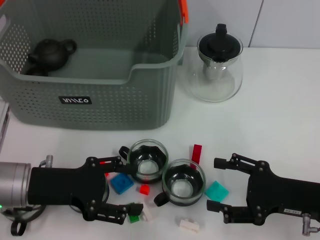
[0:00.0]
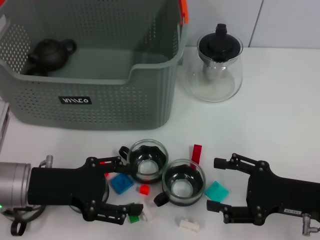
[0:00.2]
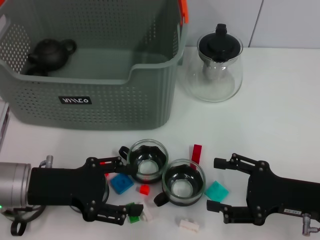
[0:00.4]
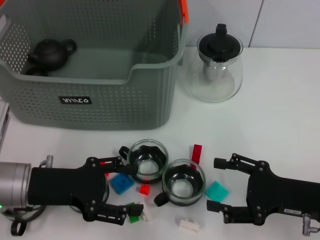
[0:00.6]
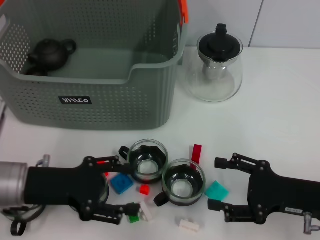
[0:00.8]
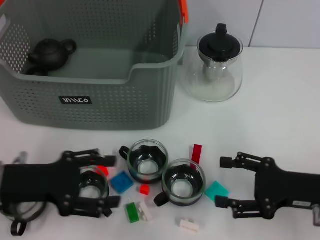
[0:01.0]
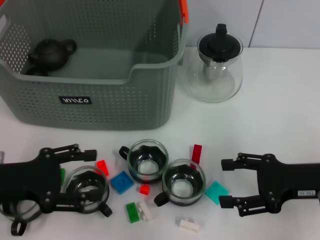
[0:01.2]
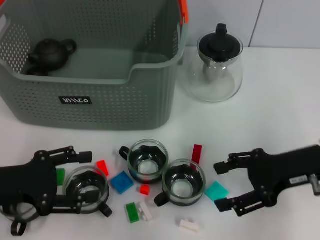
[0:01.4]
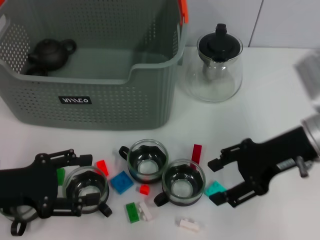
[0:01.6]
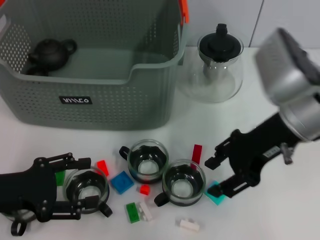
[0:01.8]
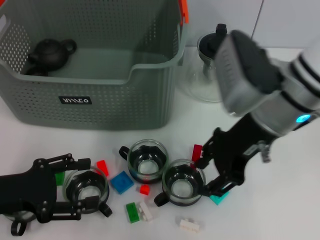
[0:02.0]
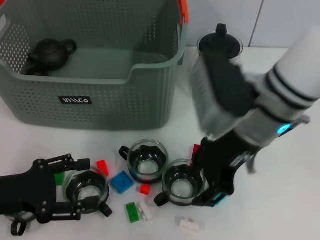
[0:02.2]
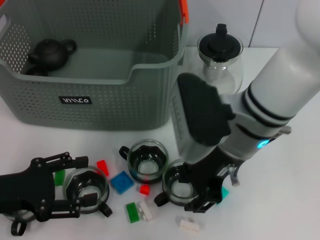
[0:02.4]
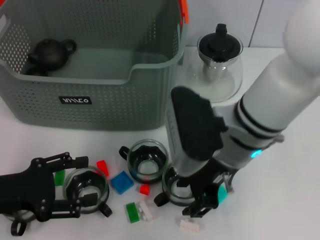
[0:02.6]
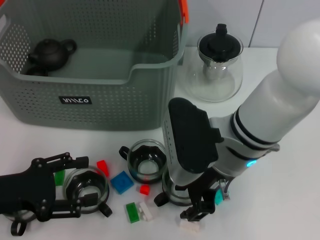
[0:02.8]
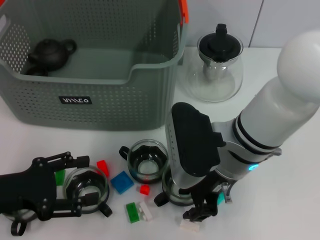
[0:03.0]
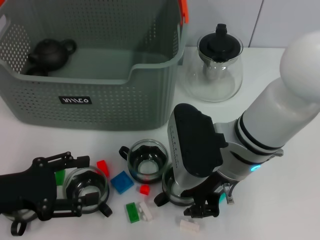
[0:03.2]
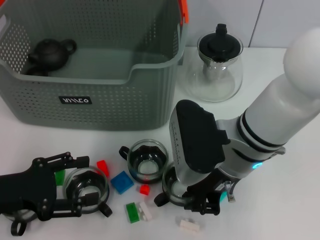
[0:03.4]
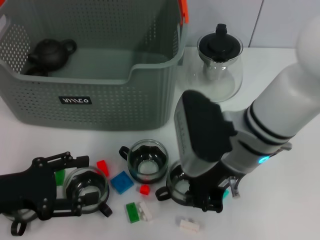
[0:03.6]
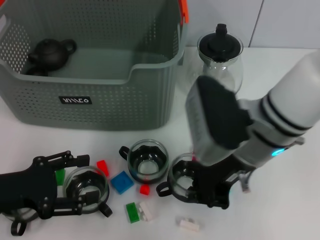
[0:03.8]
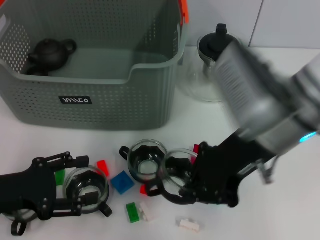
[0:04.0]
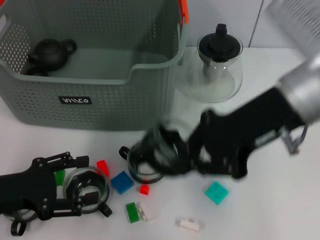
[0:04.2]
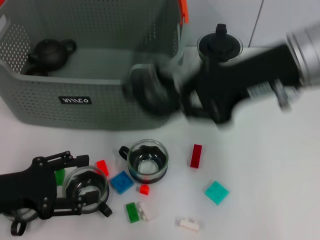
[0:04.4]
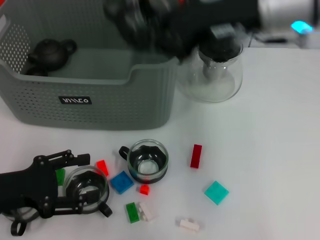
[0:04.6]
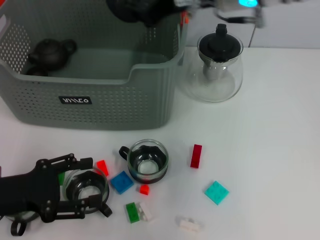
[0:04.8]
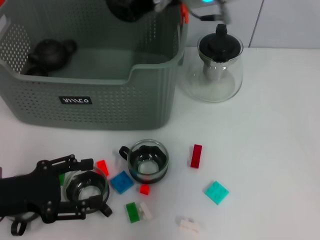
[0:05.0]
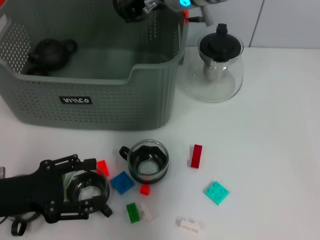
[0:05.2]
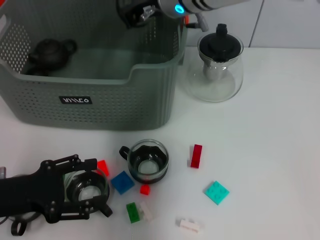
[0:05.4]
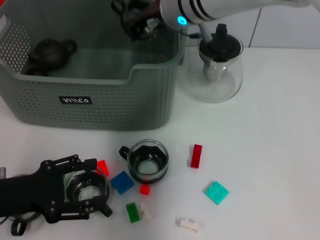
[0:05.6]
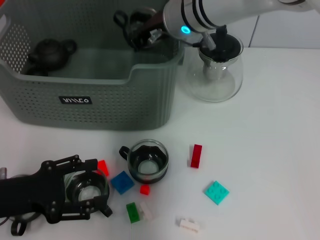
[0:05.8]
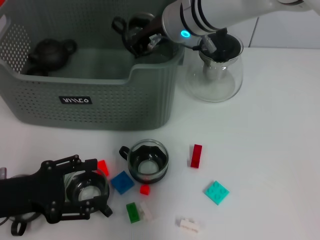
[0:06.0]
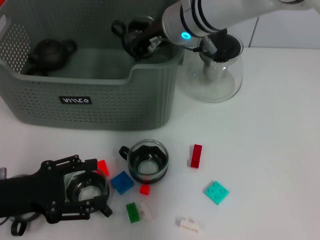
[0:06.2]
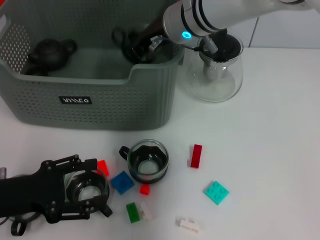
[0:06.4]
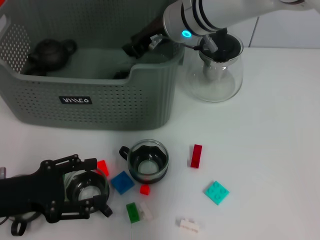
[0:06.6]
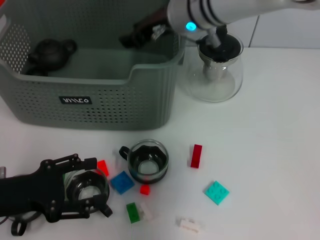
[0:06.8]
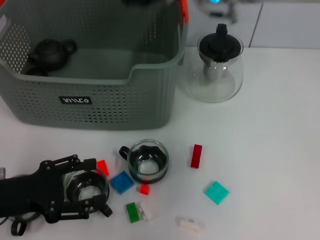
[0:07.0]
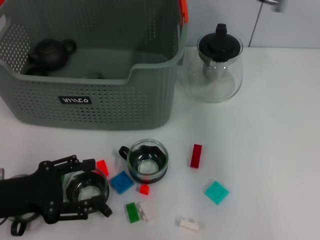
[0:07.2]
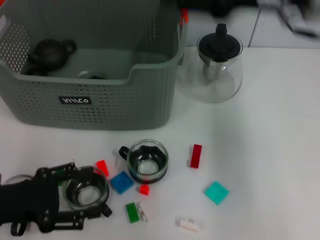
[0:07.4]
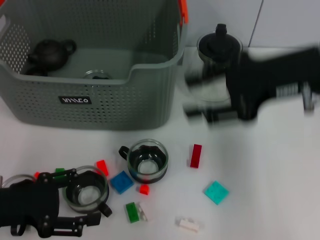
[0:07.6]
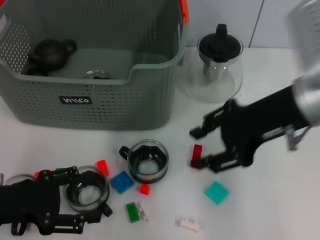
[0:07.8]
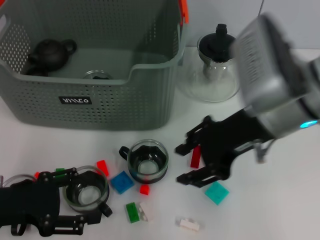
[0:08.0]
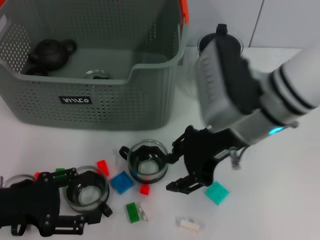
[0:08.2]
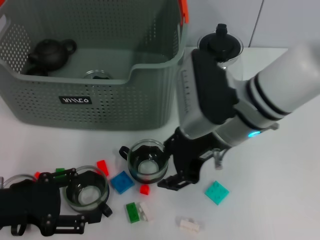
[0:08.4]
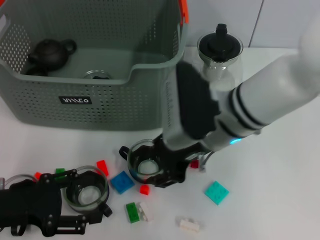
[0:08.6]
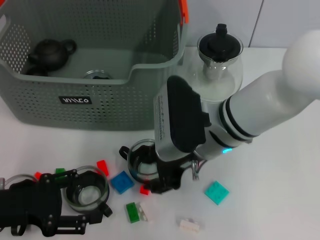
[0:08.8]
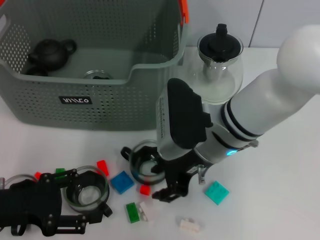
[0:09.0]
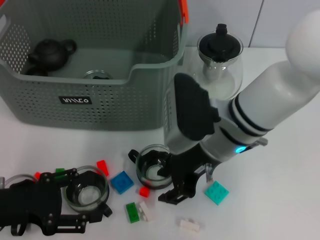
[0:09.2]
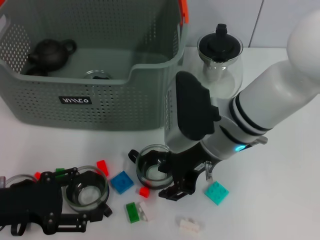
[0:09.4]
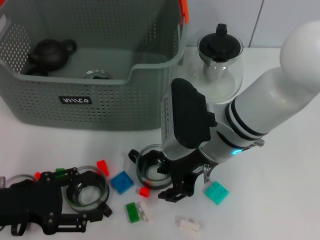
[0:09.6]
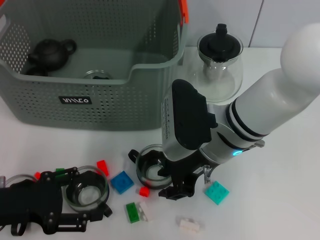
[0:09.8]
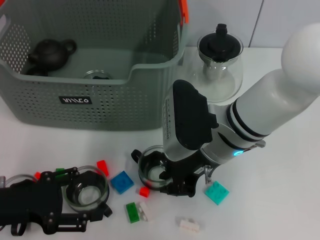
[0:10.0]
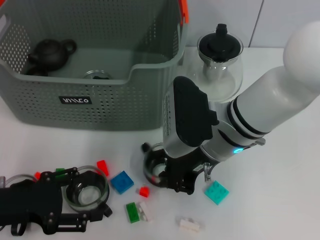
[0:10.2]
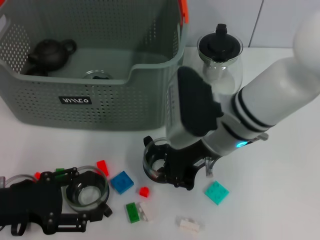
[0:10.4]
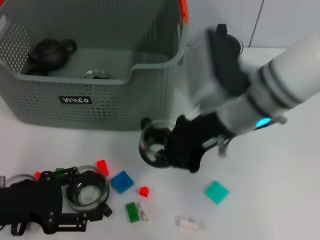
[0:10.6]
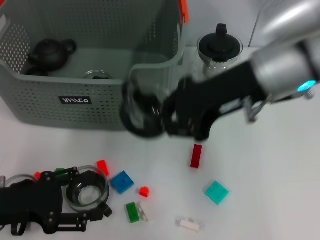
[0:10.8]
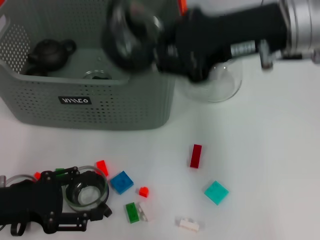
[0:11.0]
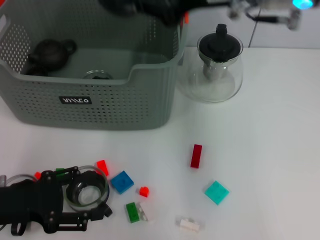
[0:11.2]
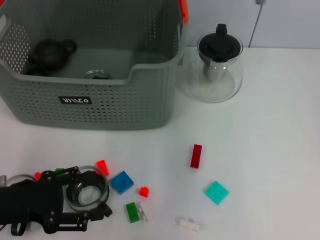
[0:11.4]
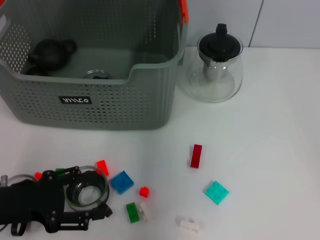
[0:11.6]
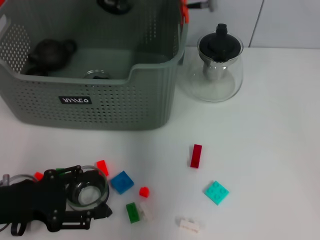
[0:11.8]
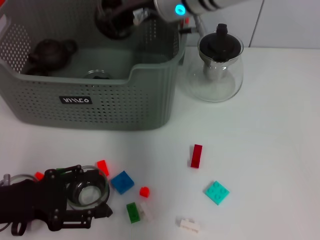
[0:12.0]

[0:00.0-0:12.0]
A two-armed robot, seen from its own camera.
Task of the whole recording: pick up the teacup on the table and place it into the storage bin, pick up the block on the table and place it into the storage bin.
Step, 0:00.0 to 0:03.6: Grasp the cup with right gripper.
Step, 0:03.8 to 0:06.6: Place the cup in the storage box with right gripper.
Step, 0:06.8 to 0:10.2: Grasp the cup with right gripper.
0:00.0 to 0:01.6: The left gripper is displaced to the left by approximately 5 cm, while the right gripper moves upward and forward, approximately 15 cm.
0:01.6 to 0:03.0: The right gripper is displaced to the left by some 15 cm, and closes.
0:03.0 to 0:04.4: The right gripper is displaced upward and to the right by roughly 15 cm, and closes up.
0:04.4 to 0:06.0: The right gripper shifts some 20 cm to the left, forward and downward.
0:06.0 to 0:07.6: The right gripper heads to the right and backward, covering roughly 20 cm, and opens.
0:07.6 to 0:09.0: The right gripper shifts some 15 cm to the left and downward.
0:09.0 to 0:10.4: The right gripper closes its fingers.
0:10.4 to 0:12.0: The right gripper shifts some 15 cm forward, upward and to the left.

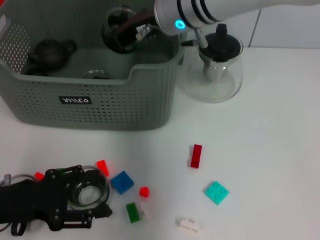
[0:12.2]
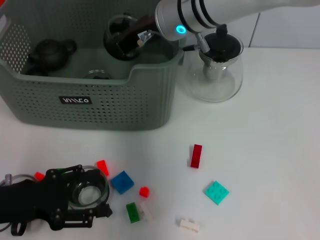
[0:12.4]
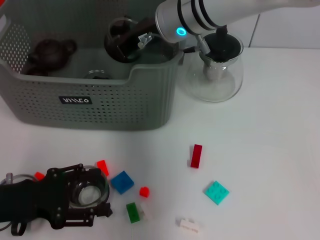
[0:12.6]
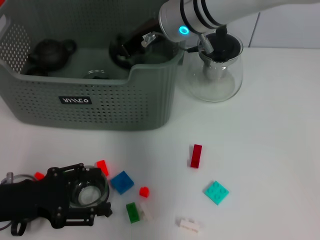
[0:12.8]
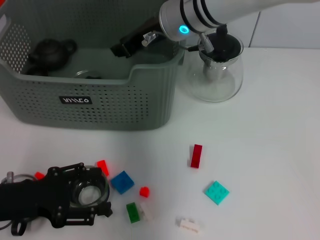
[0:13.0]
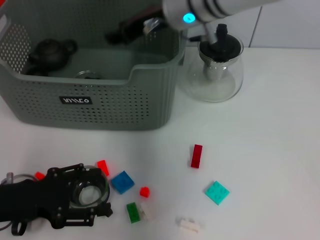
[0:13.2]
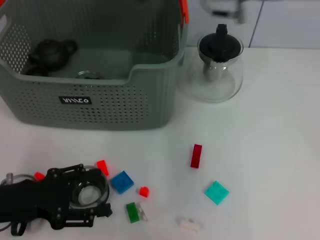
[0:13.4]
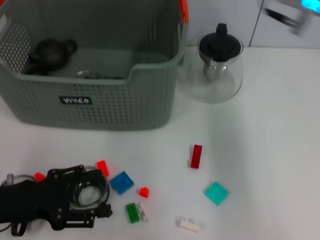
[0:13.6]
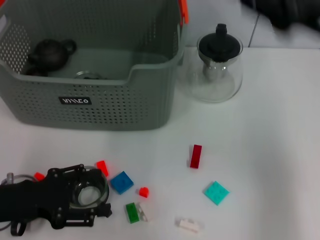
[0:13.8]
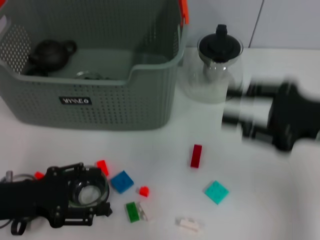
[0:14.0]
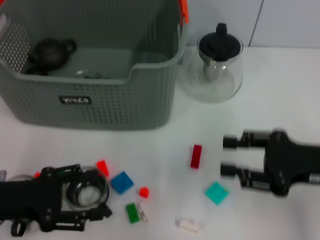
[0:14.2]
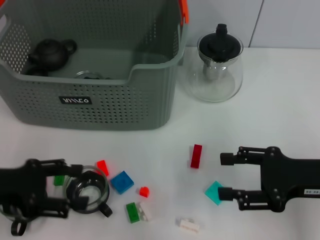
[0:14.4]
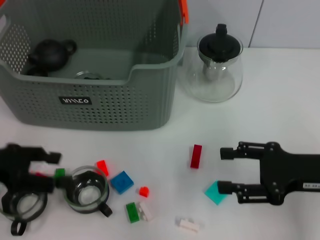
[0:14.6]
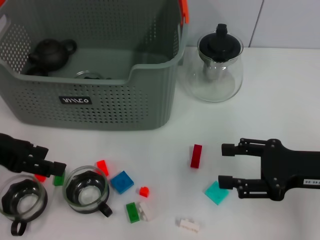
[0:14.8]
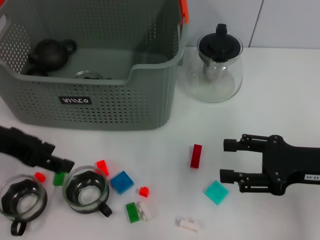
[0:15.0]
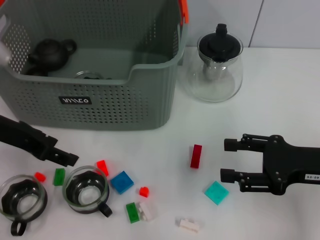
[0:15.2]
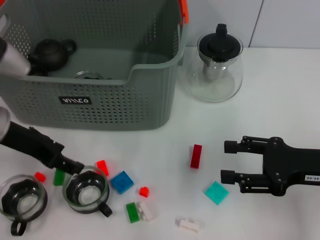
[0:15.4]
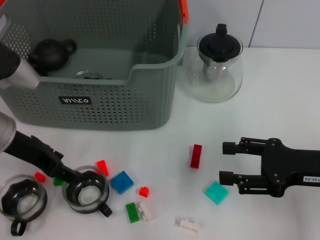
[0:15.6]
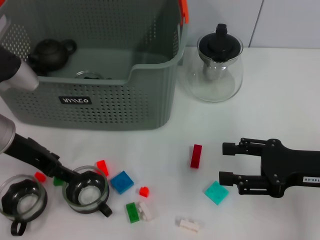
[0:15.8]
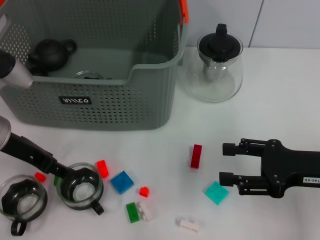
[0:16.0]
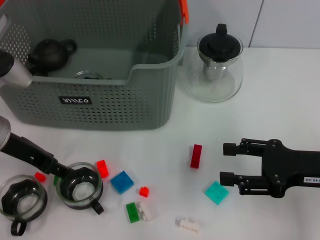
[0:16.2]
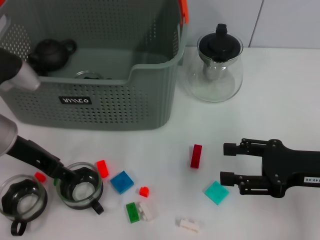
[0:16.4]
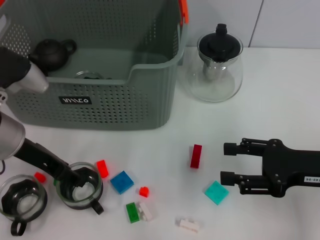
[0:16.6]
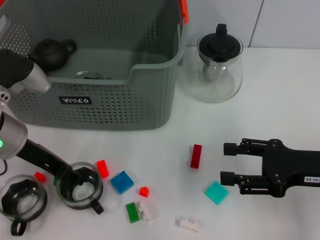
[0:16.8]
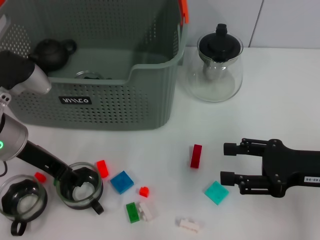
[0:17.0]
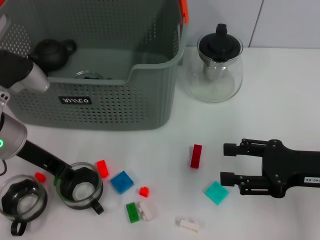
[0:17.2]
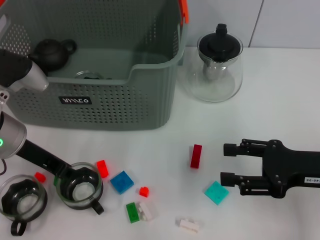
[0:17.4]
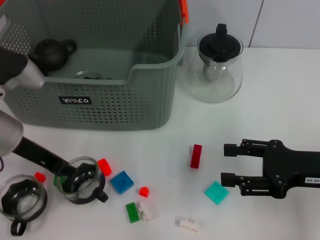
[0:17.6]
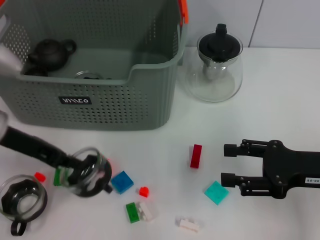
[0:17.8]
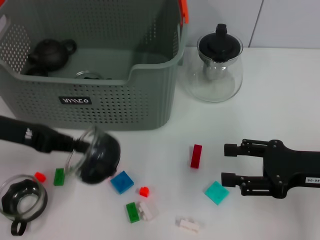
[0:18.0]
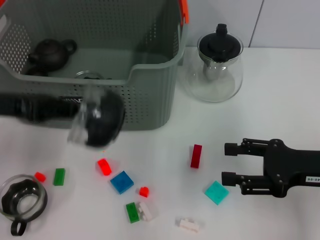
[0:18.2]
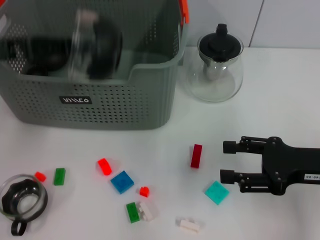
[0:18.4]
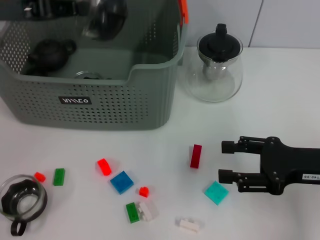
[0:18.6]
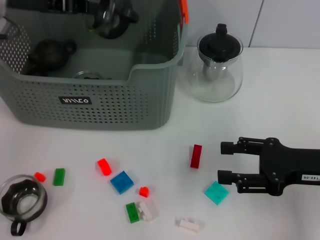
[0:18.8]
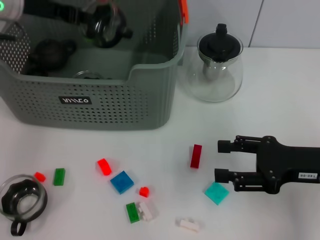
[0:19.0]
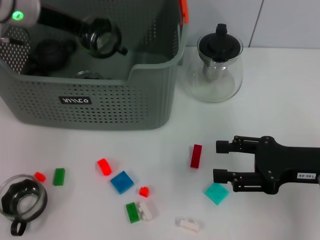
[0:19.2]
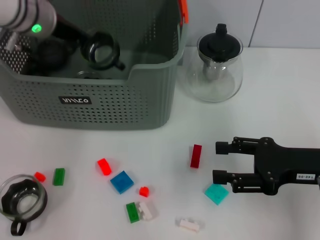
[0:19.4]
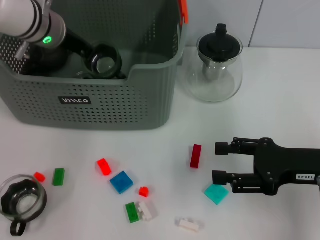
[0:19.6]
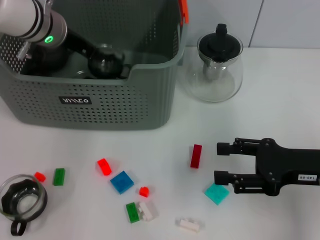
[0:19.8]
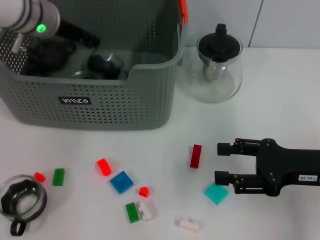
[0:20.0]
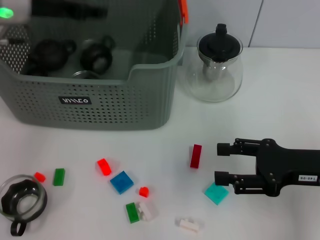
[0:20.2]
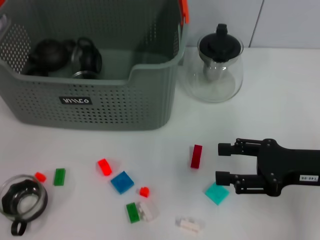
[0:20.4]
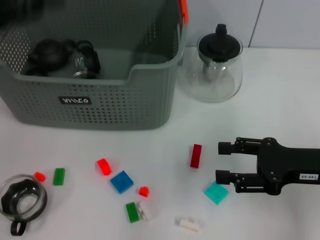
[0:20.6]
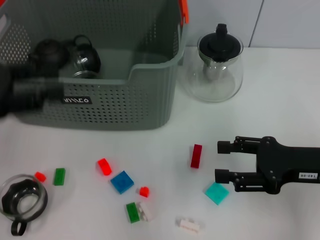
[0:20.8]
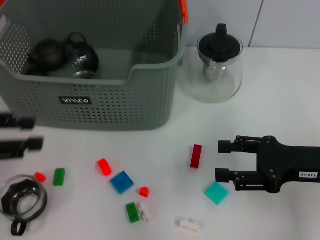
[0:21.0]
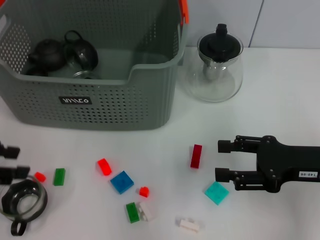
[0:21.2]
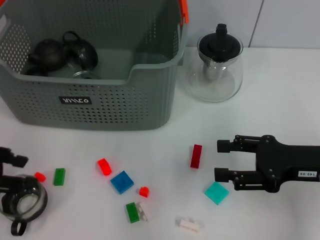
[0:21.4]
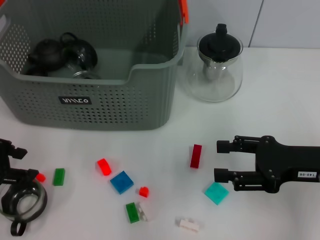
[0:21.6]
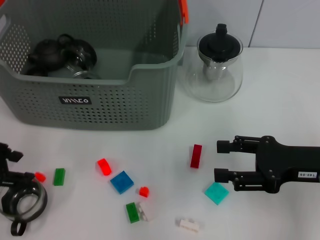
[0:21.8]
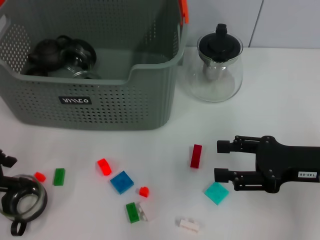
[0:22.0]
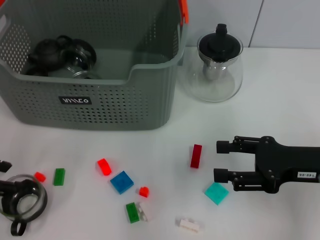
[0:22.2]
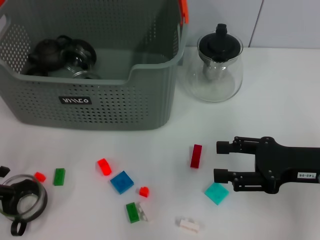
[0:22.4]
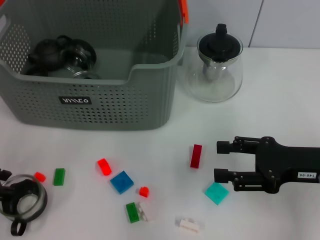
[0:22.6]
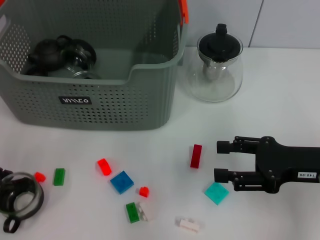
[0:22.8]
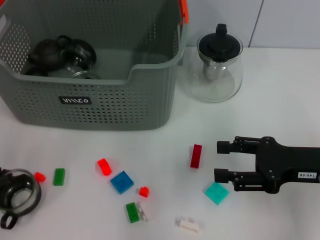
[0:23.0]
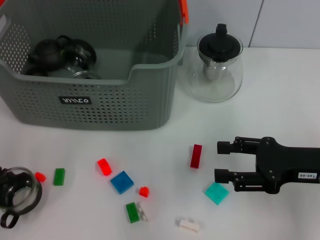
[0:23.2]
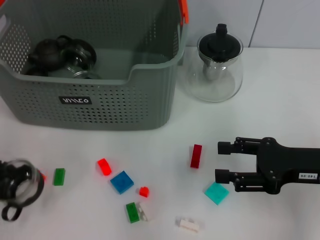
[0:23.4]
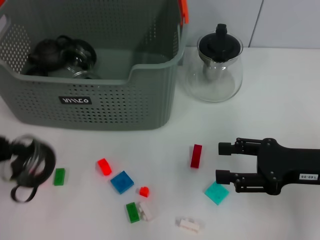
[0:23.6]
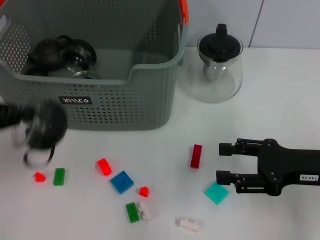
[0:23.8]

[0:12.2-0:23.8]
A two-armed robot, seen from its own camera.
Task of the whole recording: pick up the teacup on the table and place it into the storage bin, pick up the block on the table and place it into the storage bin.
Step, 0:13.2 to 0:17.6: Grasp the cup with left gripper.
Step, 0:17.8 to 0:20.0: Place the cup in the storage box with left gripper.
Step, 0:20.2 to 0:23.2: Grasp the cup with left gripper.
0:12.2 to 0:13.6: The right gripper travels to the right and backward by approximately 15 cm, and opens.
0:13.6 to 0:15.0: The left gripper moves upward and forward, some 15 cm. Meanwhile the right gripper heads downward, backward and to the right, covering some 20 cm.
0:15.0 to 0:16.6: The left gripper moves about 5 cm.
0:16.6 to 0:18.0: The left gripper goes approximately 5 cm to the left, and closes up.
0:18.0 to 0:19.4: The left gripper moves forward and to the right, some 15 cm.
0:19.4 to 0:21.0: The left gripper shifts approximately 25 cm backward and to the left, and opens up.
0:21.0 to 0:22.4: The left gripper is displaced downward by about 5 cm.
0:22.4 to 0:23.8: The left gripper closes up.
